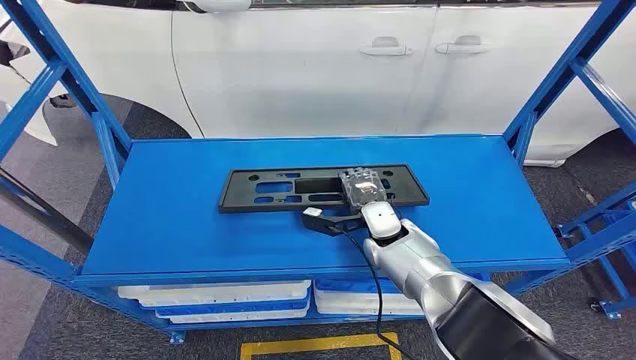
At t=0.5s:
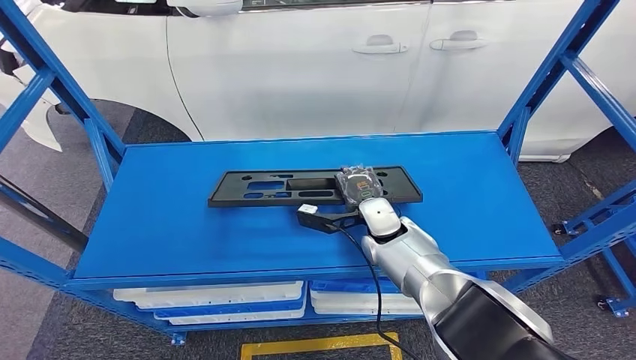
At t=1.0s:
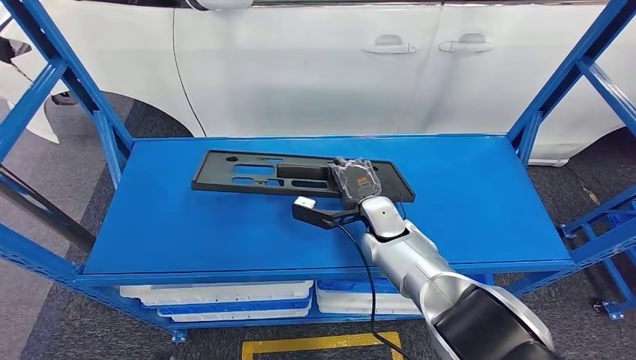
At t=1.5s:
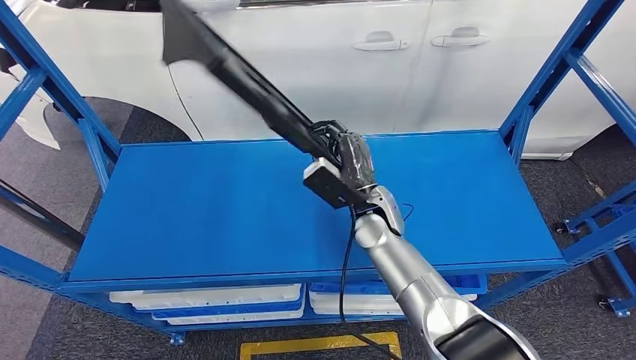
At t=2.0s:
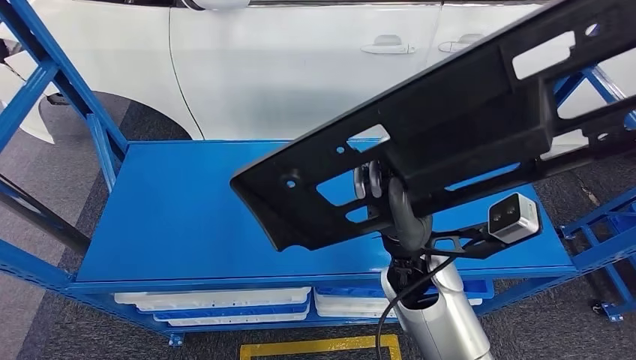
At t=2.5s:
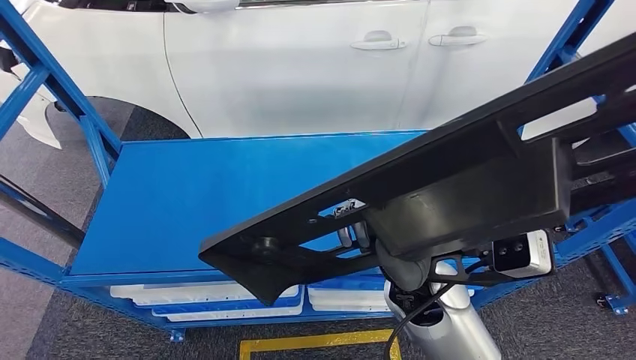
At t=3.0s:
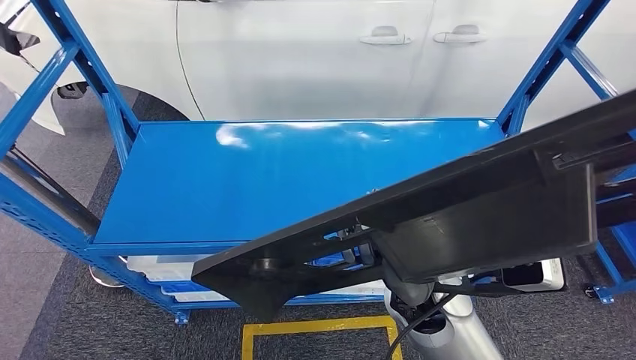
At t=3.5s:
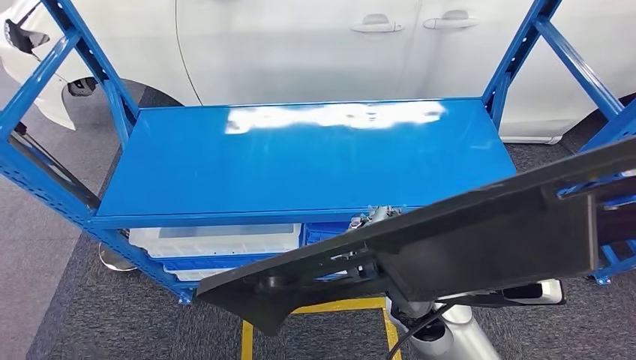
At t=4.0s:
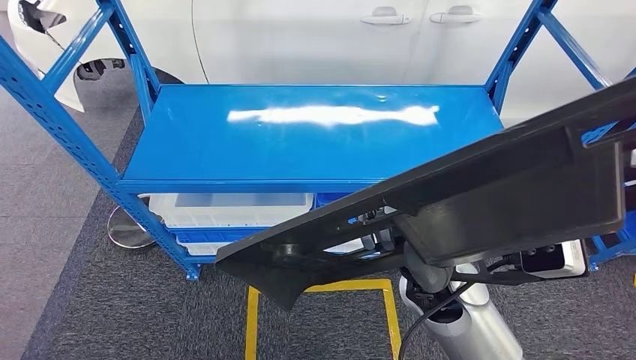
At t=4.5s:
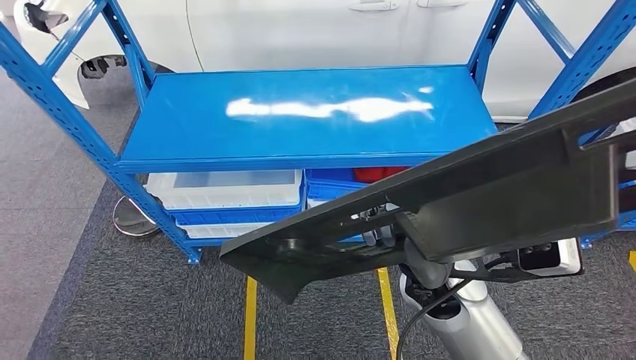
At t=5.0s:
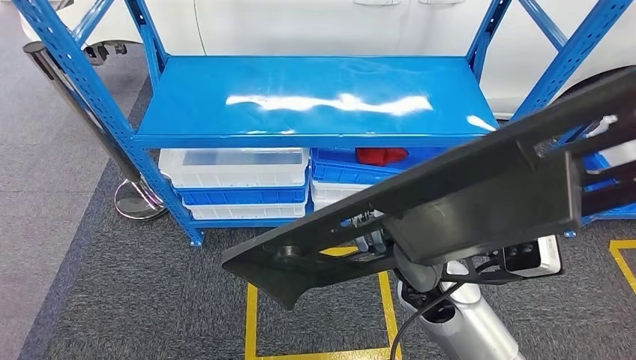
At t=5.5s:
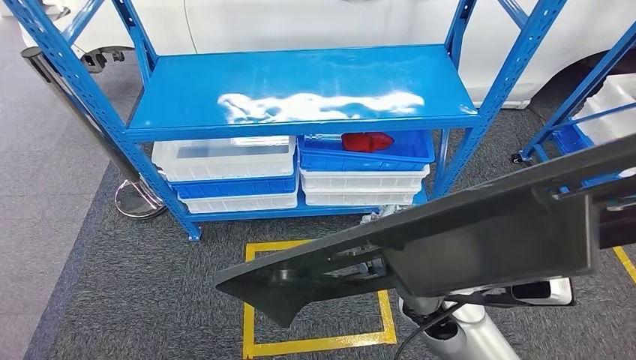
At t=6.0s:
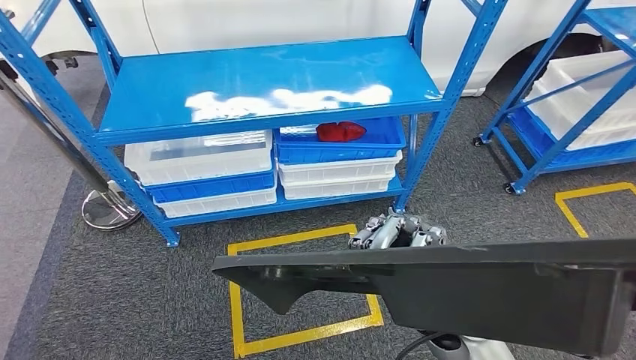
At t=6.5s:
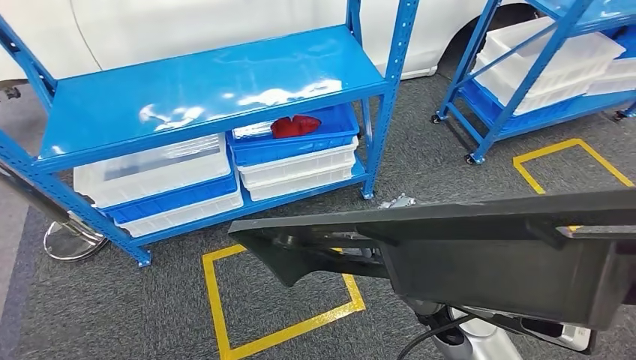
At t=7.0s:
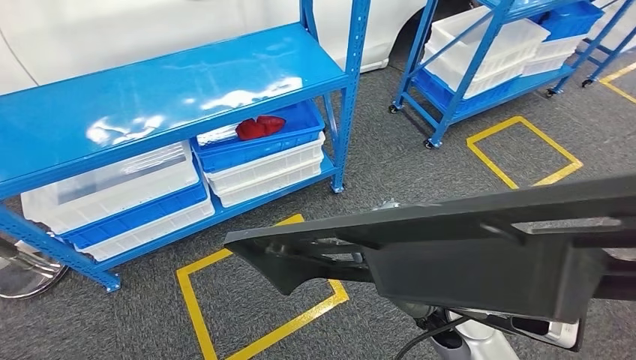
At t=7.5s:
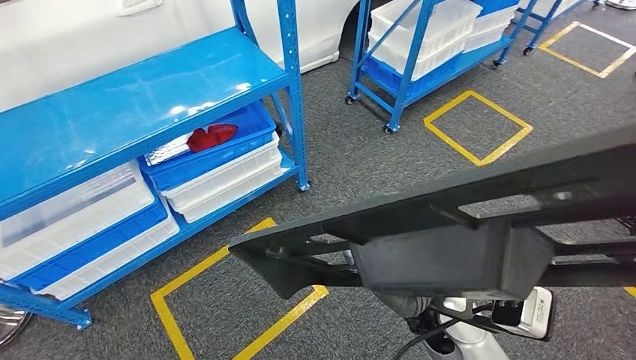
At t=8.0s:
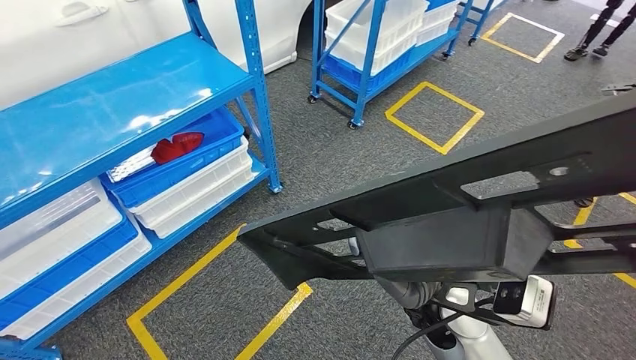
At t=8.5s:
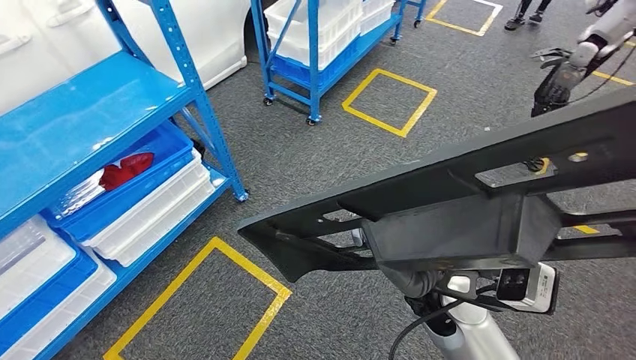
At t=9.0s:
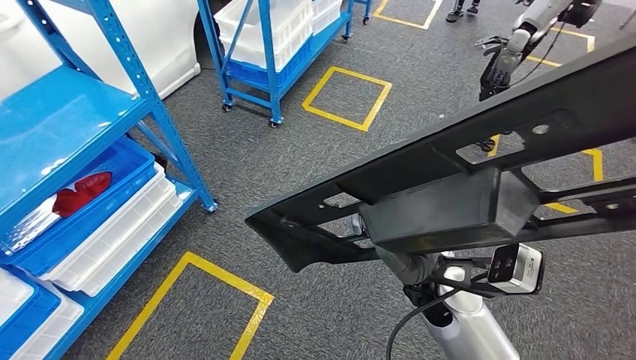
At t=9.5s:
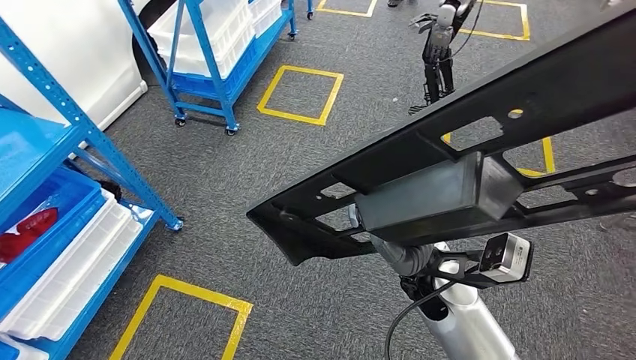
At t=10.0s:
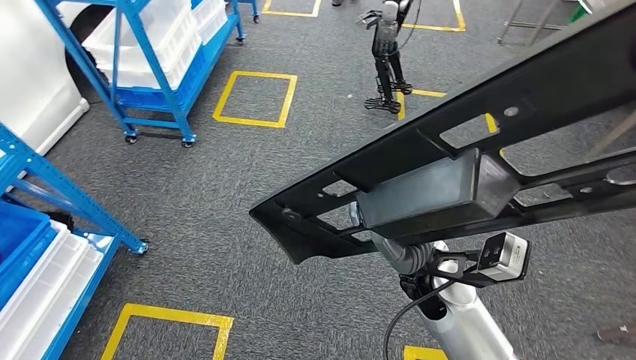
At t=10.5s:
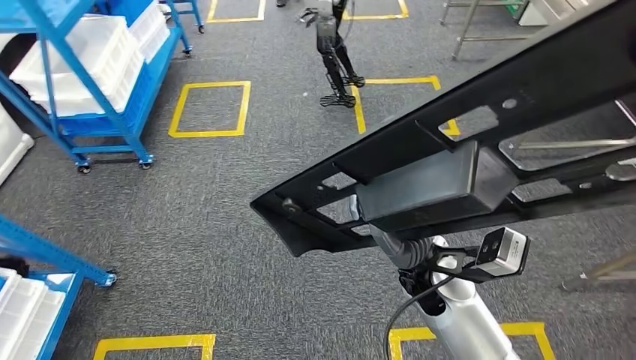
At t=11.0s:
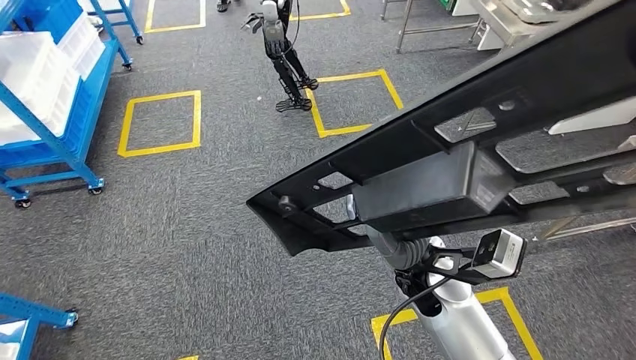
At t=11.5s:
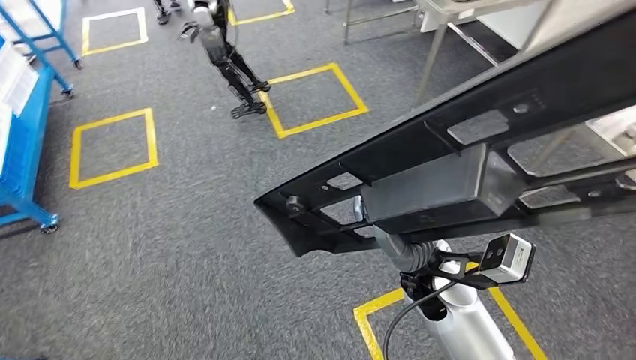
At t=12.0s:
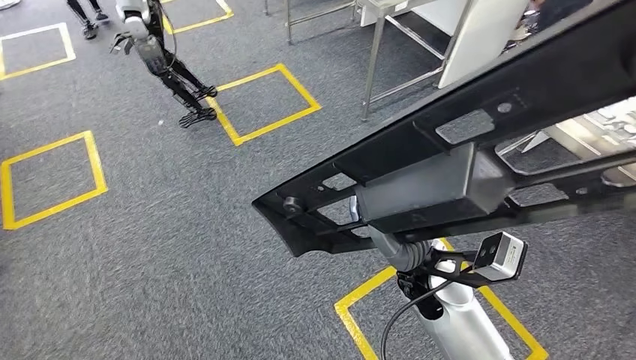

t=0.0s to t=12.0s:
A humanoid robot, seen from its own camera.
Step, t=0.0s to t=2.0s: Take small components from the rack.

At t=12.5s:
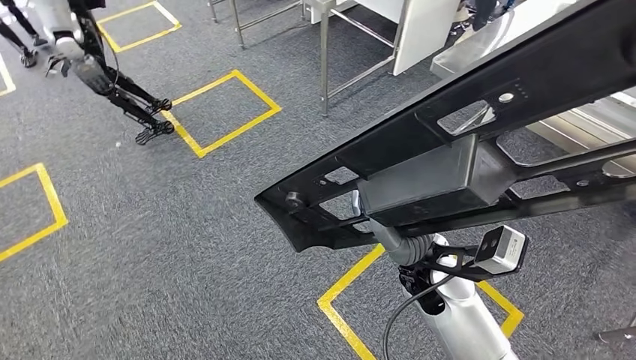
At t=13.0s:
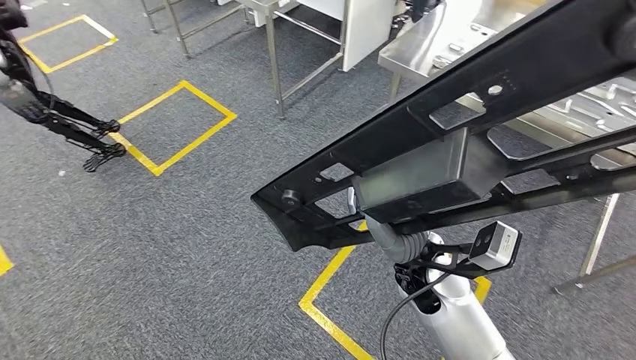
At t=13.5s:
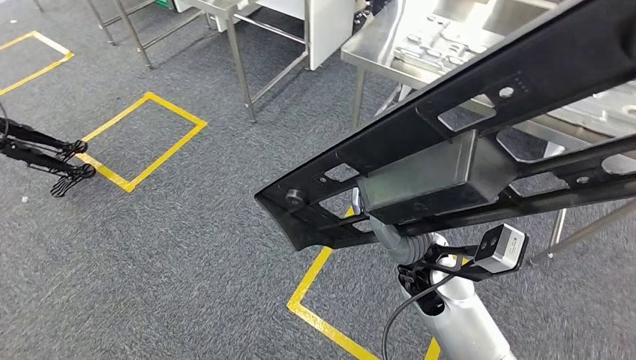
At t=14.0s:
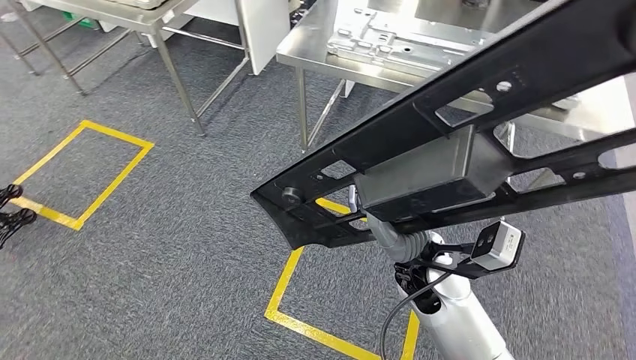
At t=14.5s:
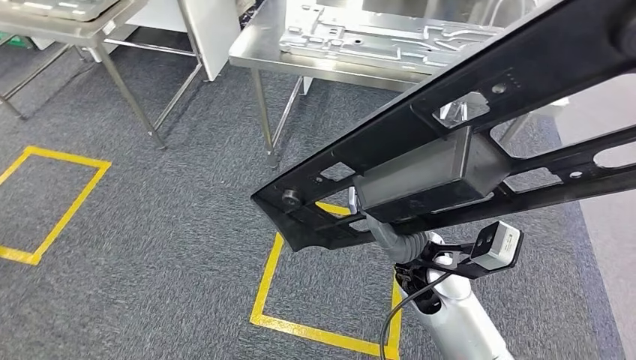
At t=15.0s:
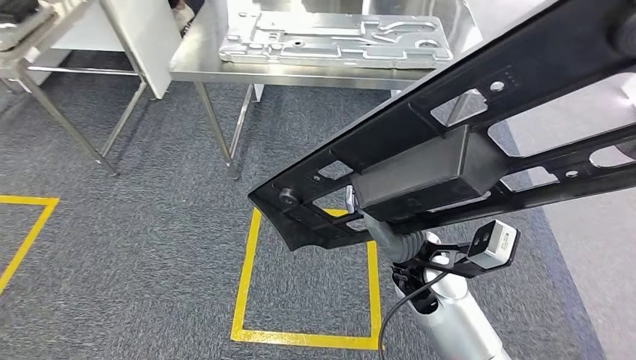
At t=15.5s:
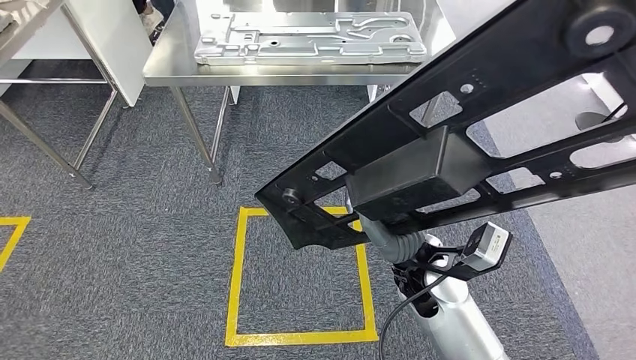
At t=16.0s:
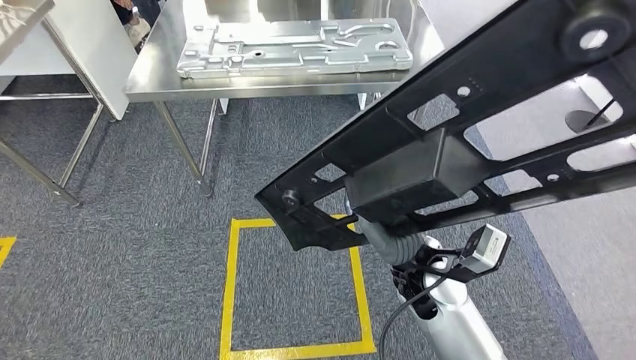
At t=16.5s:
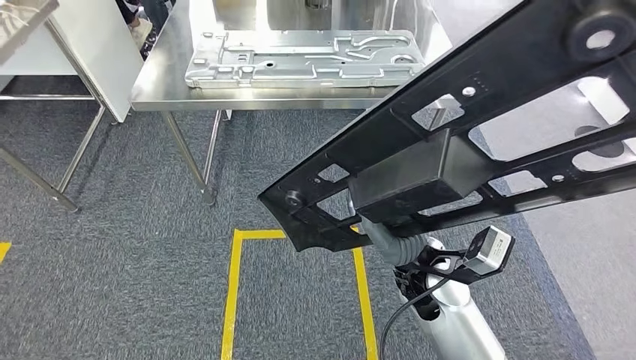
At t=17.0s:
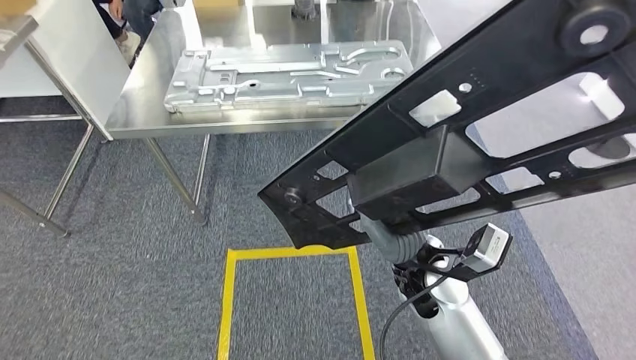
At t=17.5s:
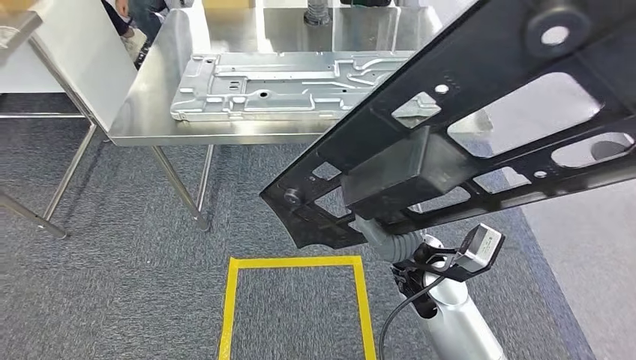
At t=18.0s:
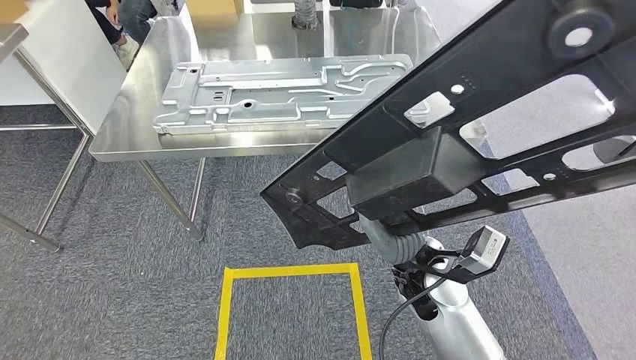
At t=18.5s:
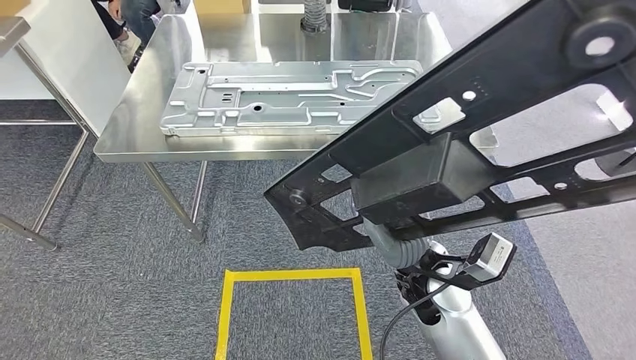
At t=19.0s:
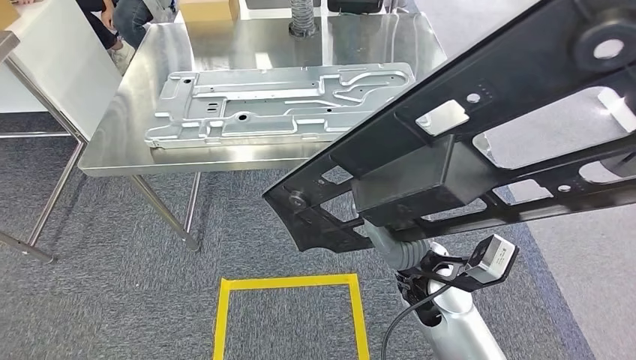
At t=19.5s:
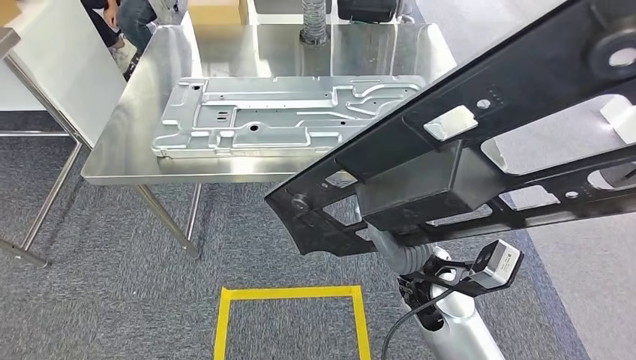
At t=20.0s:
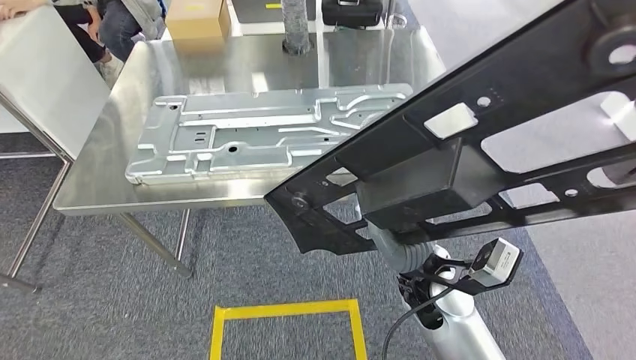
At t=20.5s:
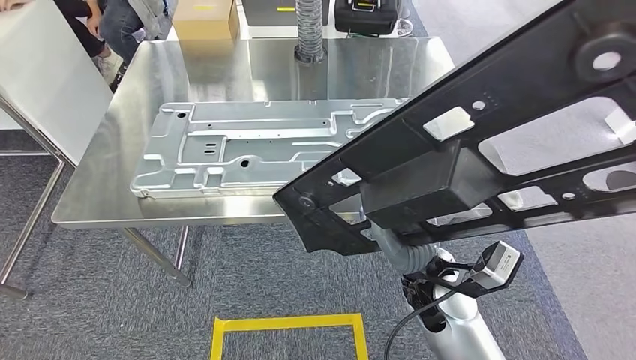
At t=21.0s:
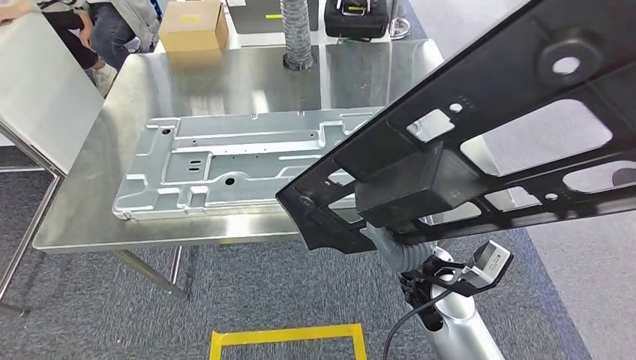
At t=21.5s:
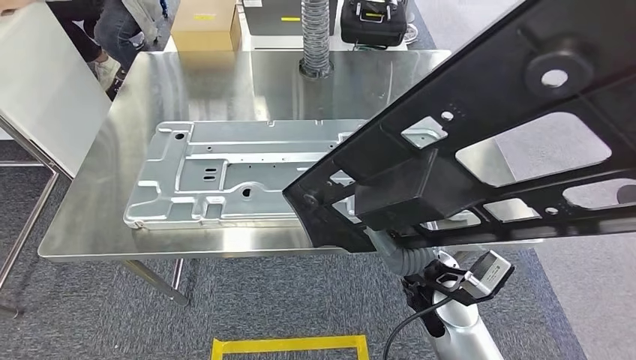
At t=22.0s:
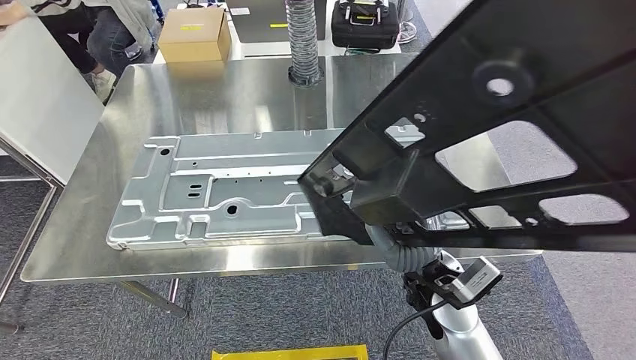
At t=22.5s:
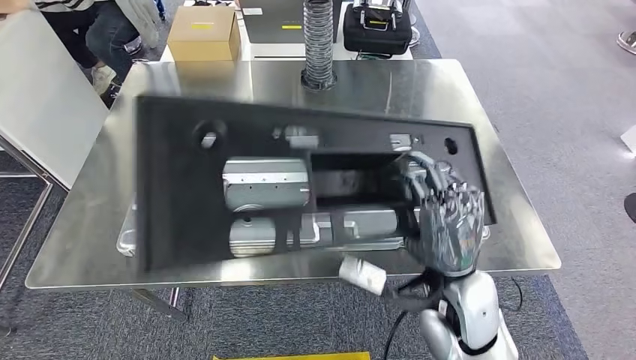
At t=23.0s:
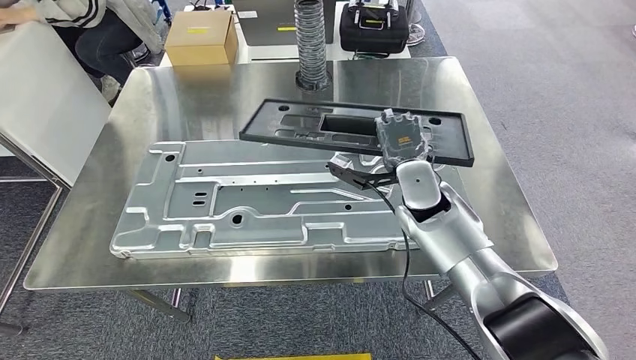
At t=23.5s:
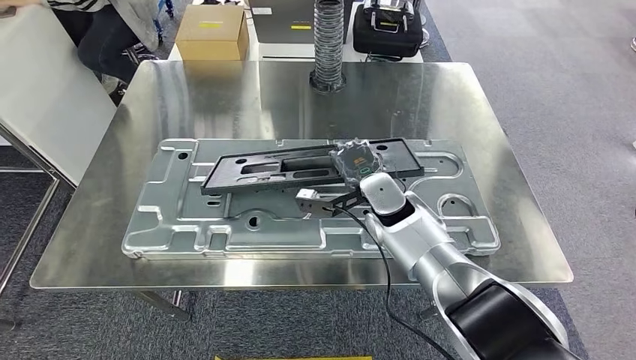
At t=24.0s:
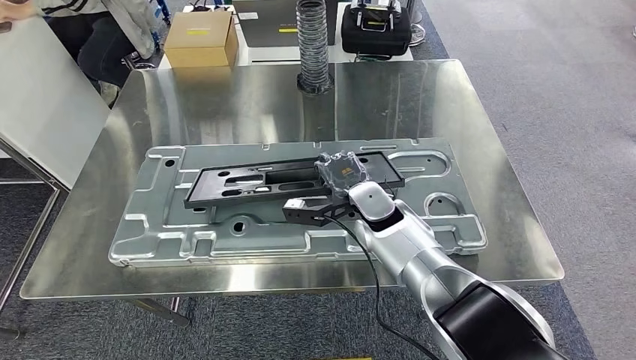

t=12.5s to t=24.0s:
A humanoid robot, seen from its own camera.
Step, t=12.5s to t=23.0s: Move the small parts to the workbench.
